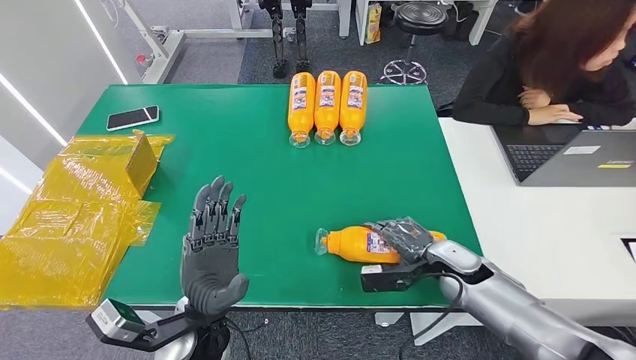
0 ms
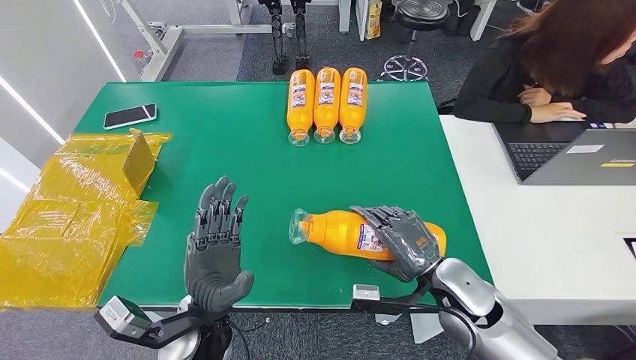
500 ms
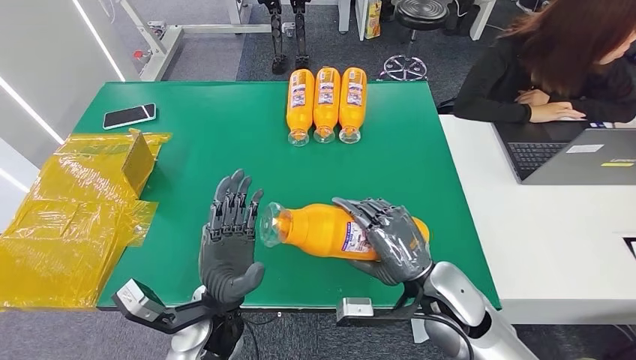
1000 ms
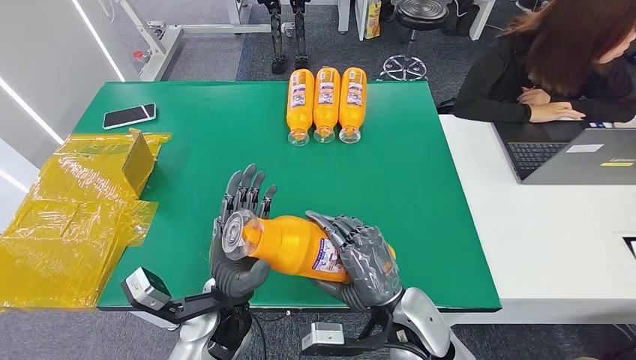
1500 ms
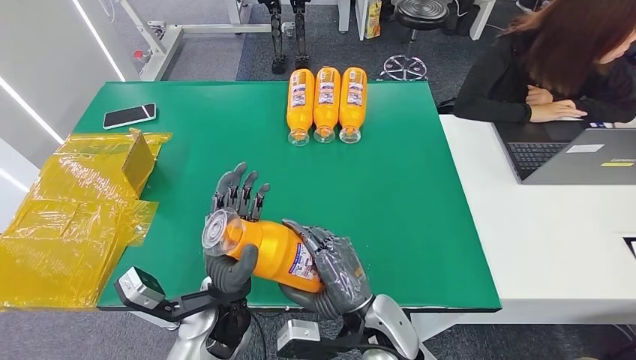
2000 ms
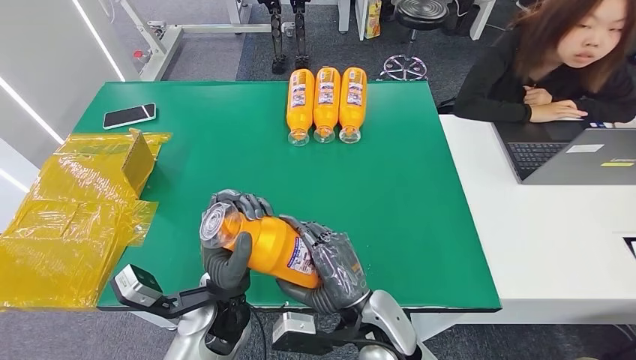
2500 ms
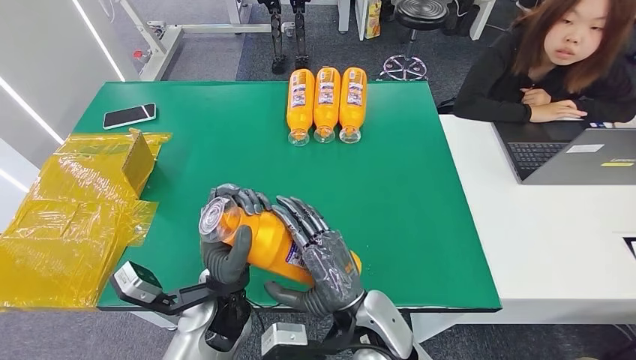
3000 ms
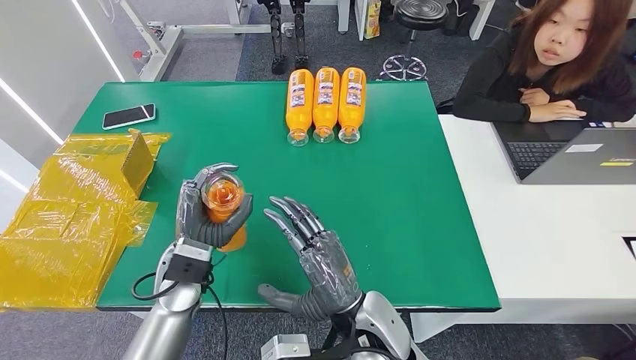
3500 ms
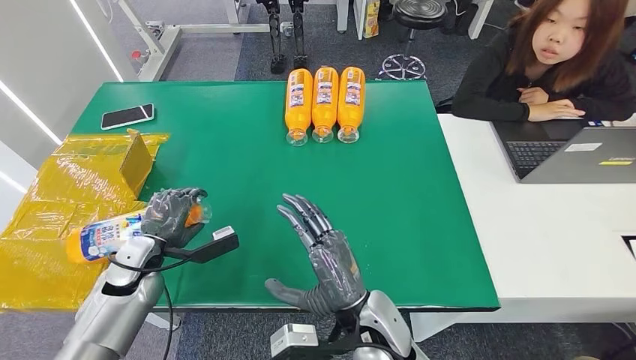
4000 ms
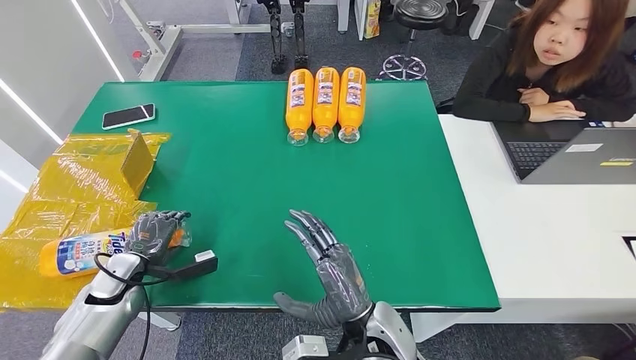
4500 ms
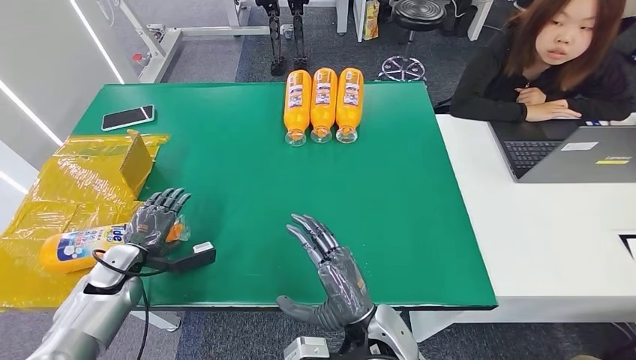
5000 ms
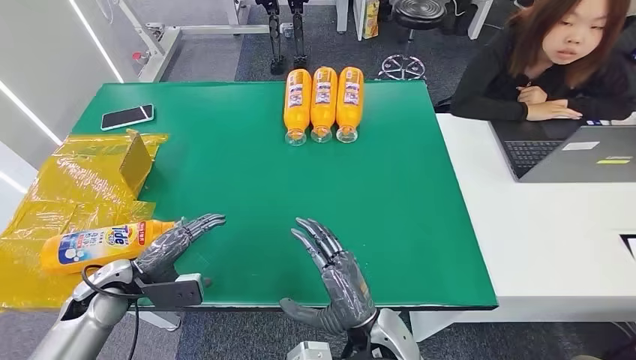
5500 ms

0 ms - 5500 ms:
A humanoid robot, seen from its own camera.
Step, 1500 ms - 5000 ms: Turn the bottle to the front side.
2000 ms - 3500 ms: The left hand travels to the left and forward by some 10 cm.
3500 ms - 5500 ms: The right hand shifts approximately 5 cm downward. The left hand is displaced to the left by some 20 cm.
